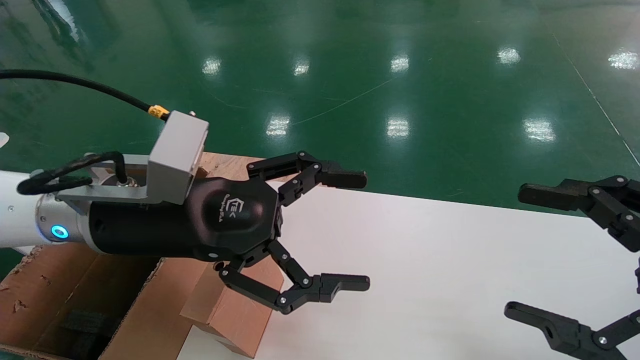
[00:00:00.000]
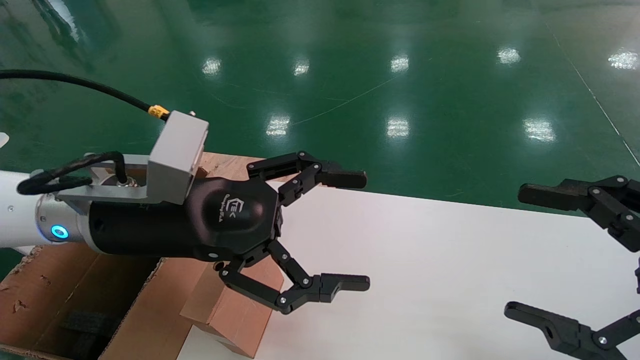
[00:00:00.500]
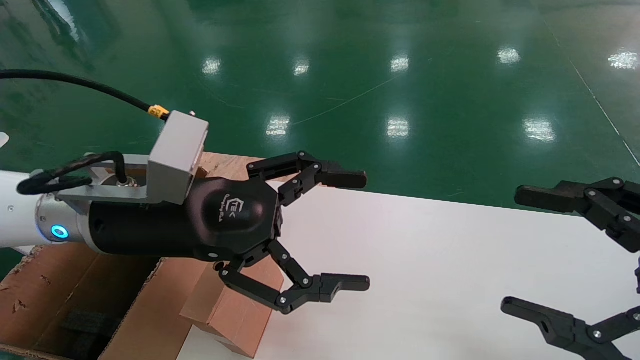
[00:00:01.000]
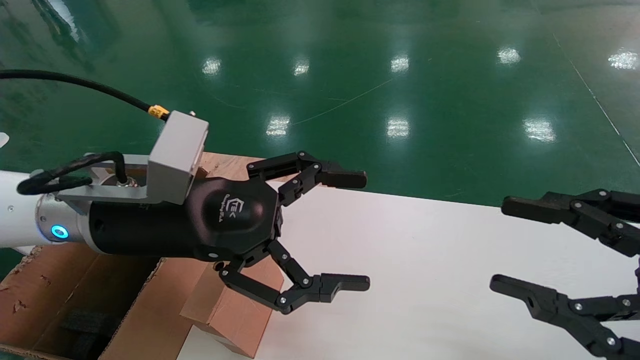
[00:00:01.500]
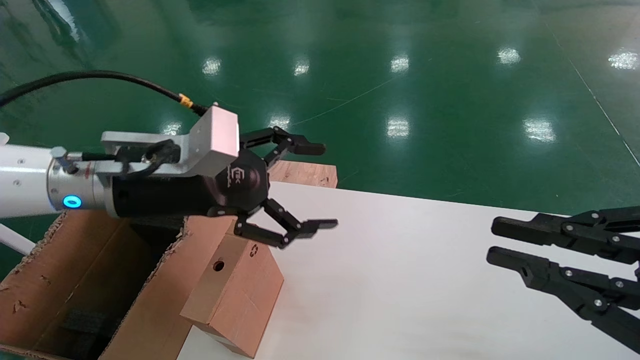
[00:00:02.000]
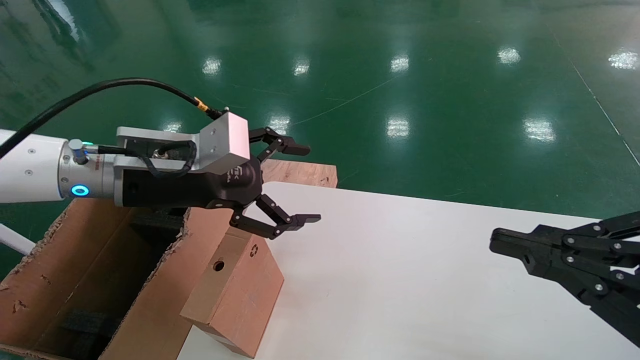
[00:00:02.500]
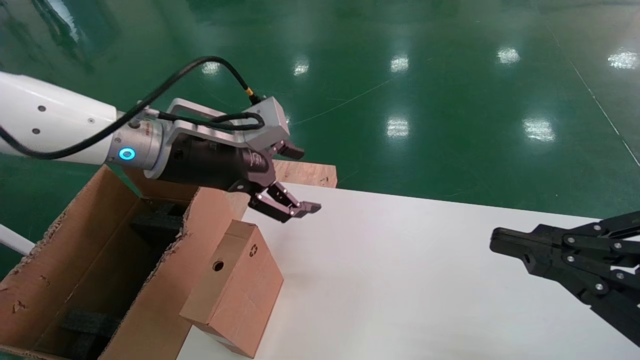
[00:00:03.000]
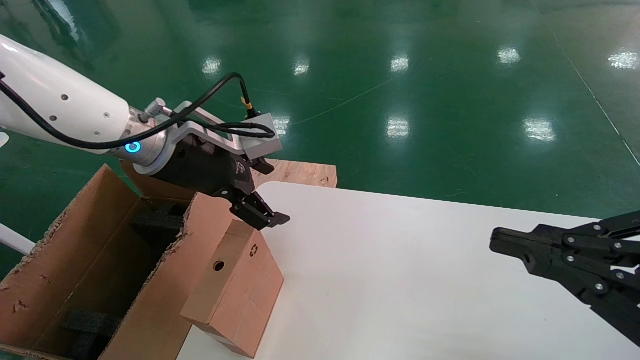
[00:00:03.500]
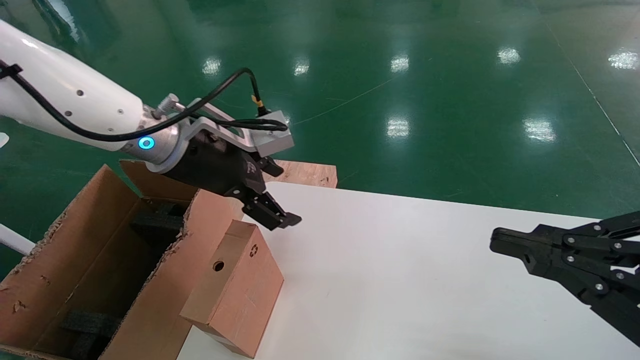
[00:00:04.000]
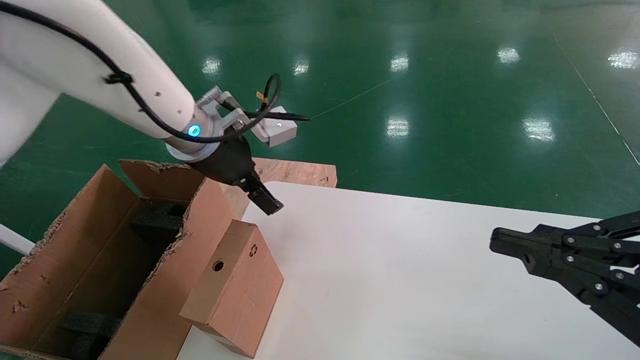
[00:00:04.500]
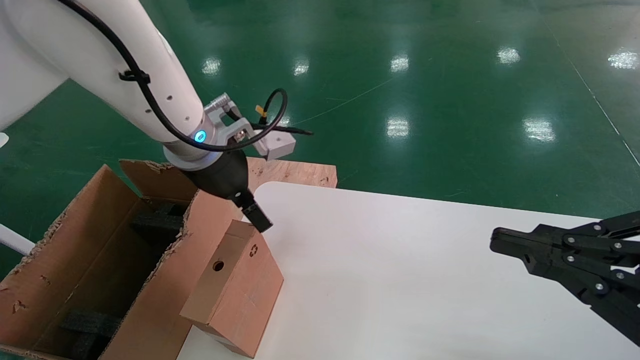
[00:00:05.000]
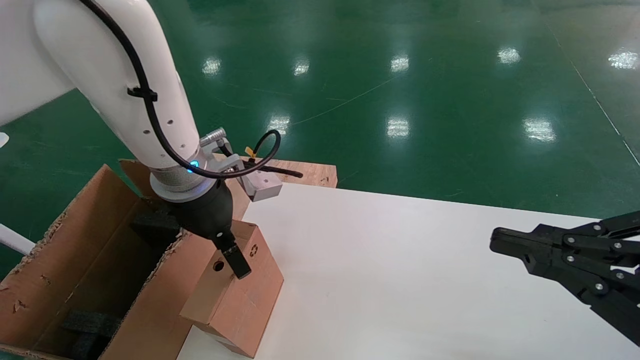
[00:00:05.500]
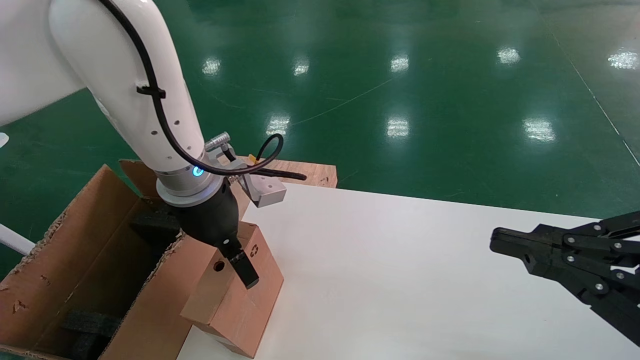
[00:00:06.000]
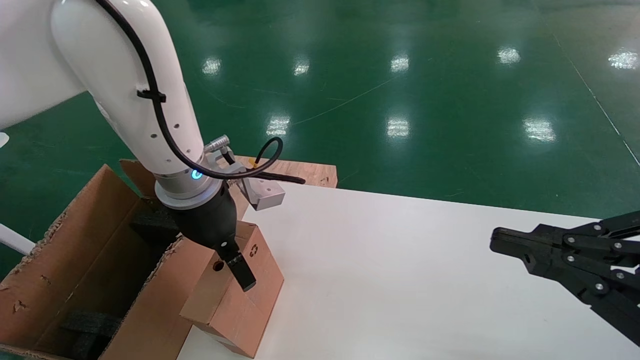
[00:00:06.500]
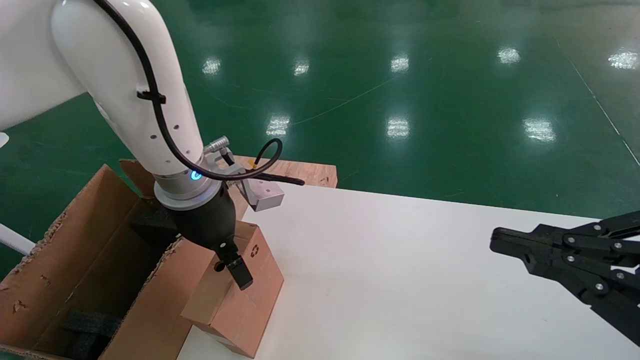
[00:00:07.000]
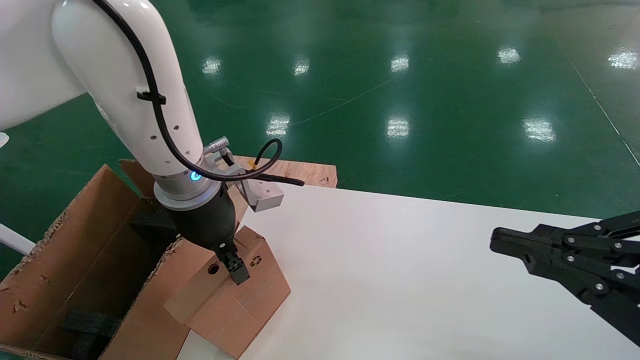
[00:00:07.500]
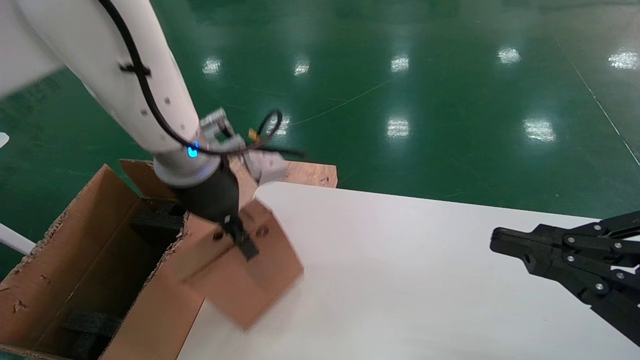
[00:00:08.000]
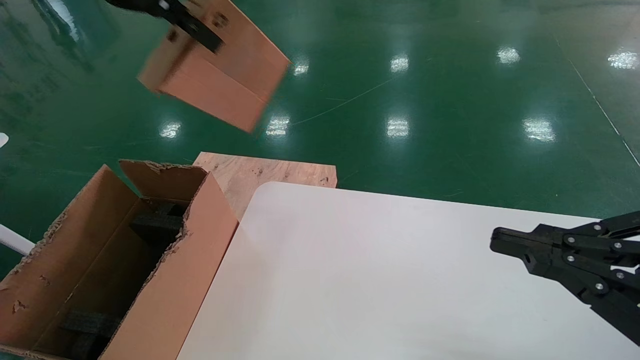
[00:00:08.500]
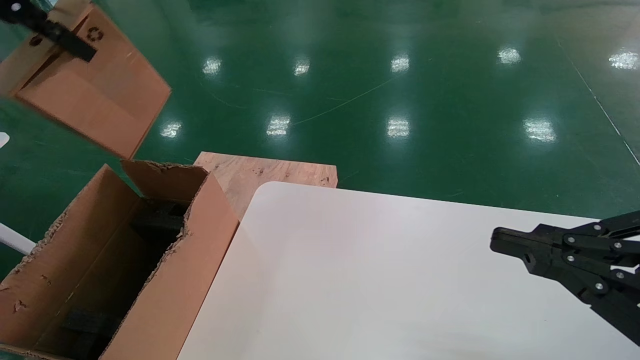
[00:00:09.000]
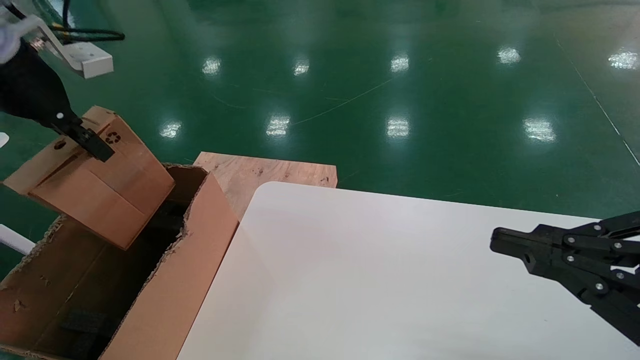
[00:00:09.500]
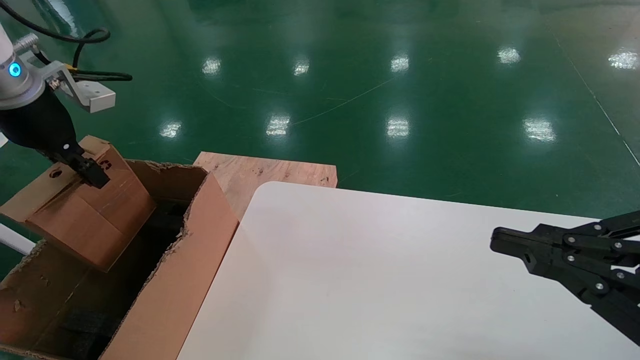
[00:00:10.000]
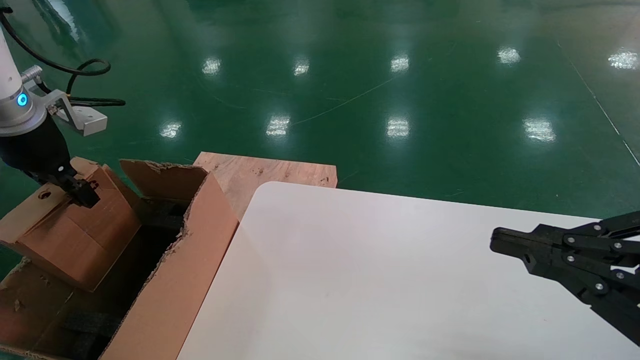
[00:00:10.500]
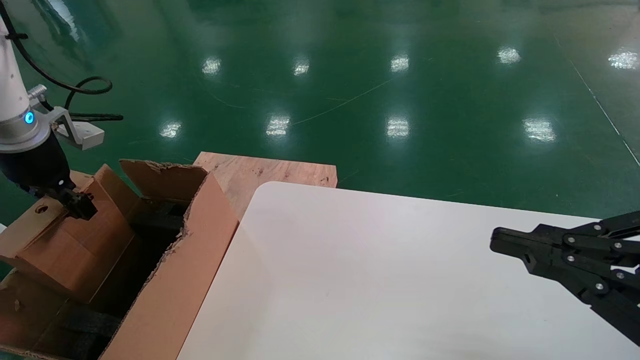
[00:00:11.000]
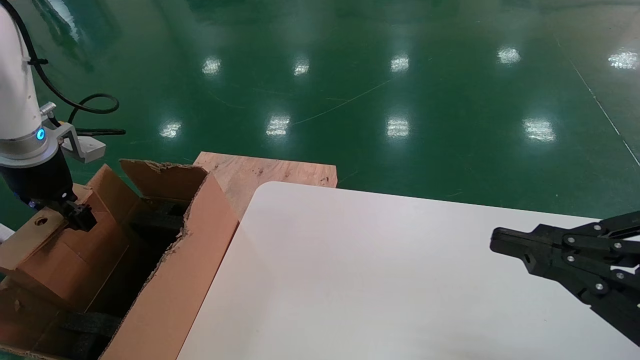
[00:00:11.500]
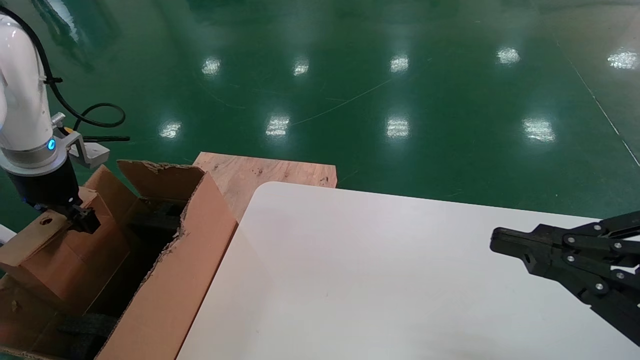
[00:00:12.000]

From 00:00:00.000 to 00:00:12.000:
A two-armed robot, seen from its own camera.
Task of the whole recording: place the small box on the table into the large box on the left.
Step, from 00:00:02.000 to 00:00:07.500: Pick up the mouse and the power cord paper box.
From 00:00:00.000 to 00:00:02.000: The right gripper closes up.
From 00:00:02.000 to 00:00:04.000: The left gripper goes some 5 cm forward.
From 00:00:04.000 to 00:00:06.000: The left gripper shifts by roughly 5 cm.
From 00:00:06.000 to 00:00:08.000: The left gripper shifts some 5 cm upward, and closes up.
From 00:00:08.000 to 00:00:10.000: The left gripper is displaced to the left by roughly 25 cm.
From 00:00:10.000 to 00:00:12.000: The left gripper heads downward, covering about 10 cm.

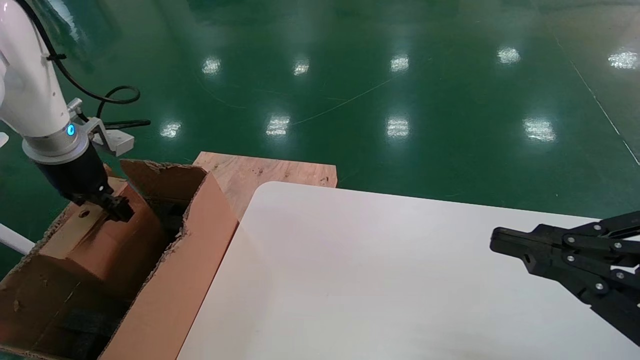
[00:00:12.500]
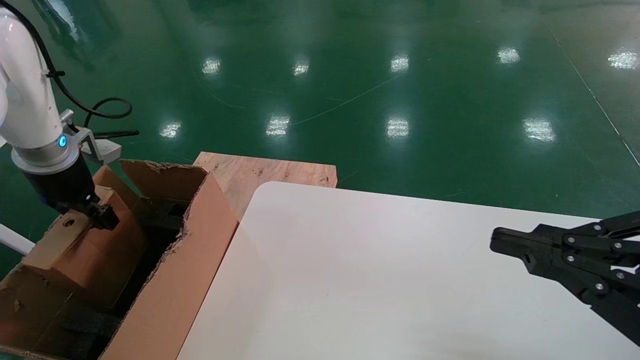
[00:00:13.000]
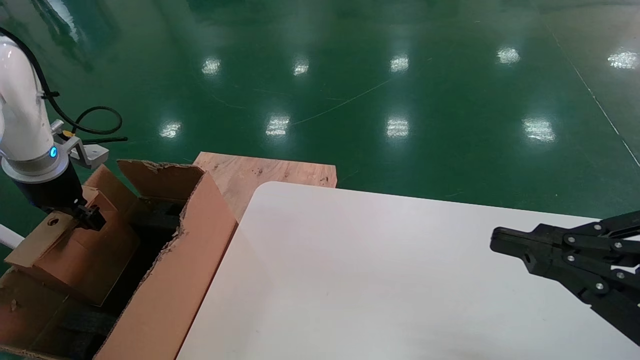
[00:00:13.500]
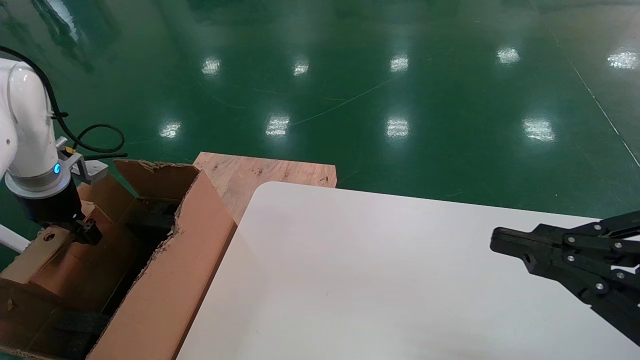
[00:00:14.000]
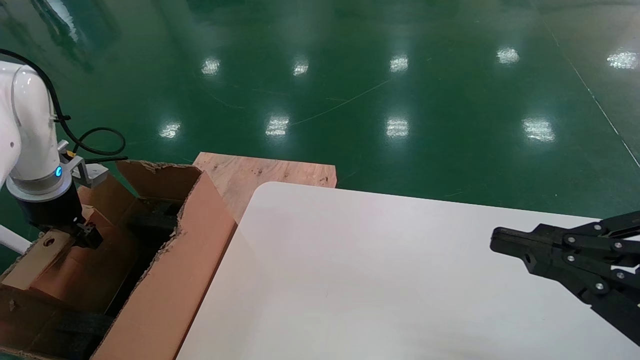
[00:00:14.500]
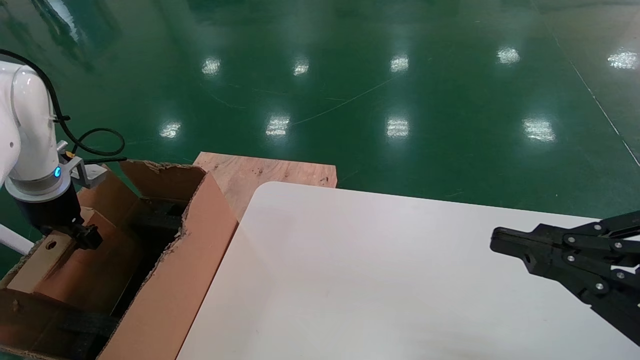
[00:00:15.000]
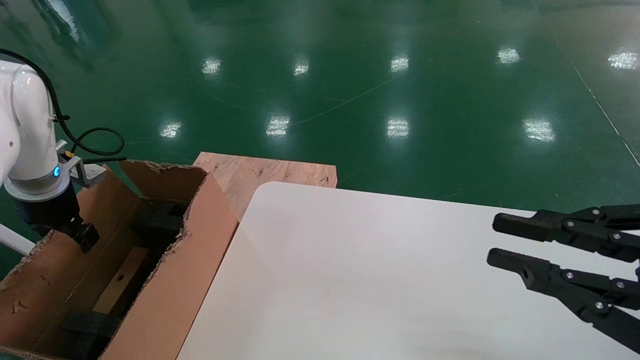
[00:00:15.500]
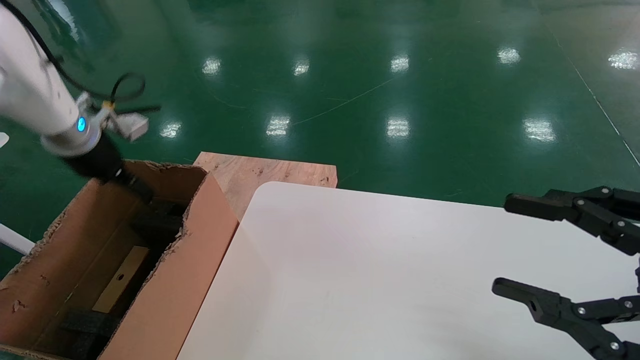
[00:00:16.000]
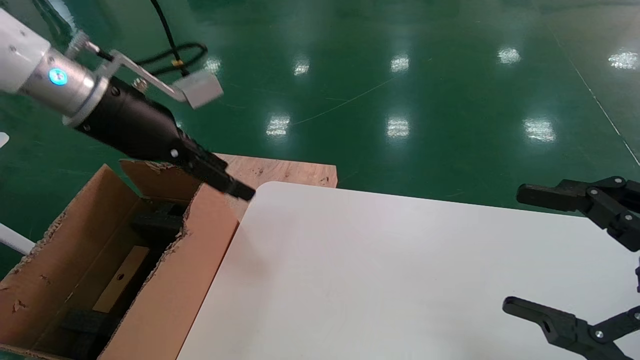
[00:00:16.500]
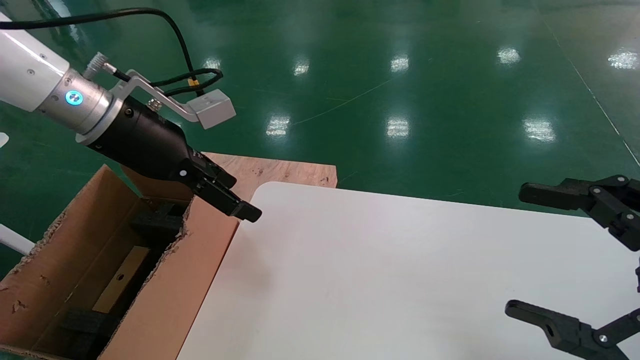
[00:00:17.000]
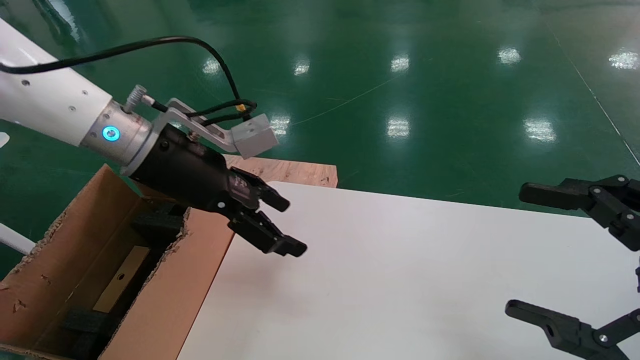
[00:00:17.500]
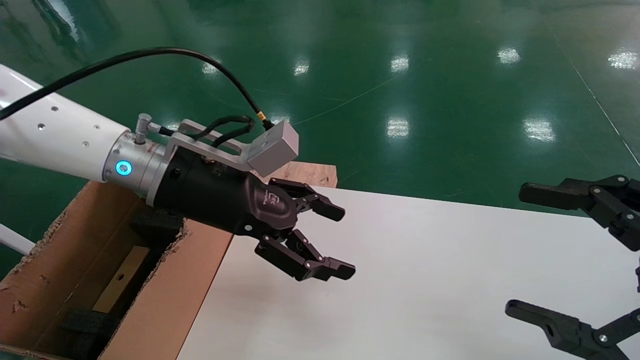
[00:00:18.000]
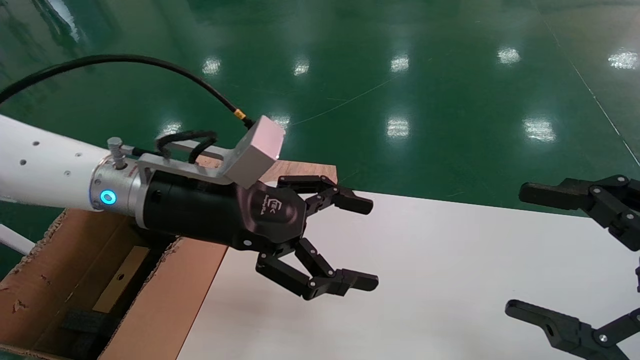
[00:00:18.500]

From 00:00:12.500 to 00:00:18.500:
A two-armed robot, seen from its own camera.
Task of the whole recording: place the small box on the table into the large box on the left.
Step, from 00:00:12.500 to 00:00:15.500: Place the mouse and the power cord paper box into the container.
From 00:00:12.500 to 00:00:14.500: The left gripper travels downward by some 5 cm.
From 00:00:14.500 to 00:00:16.500: The right gripper opens up. Meanwhile the left gripper heads to the right and upward, covering about 20 cm, and opens its fingers.
From 00:00:16.500 to 00:00:18.500: The left gripper shifts roughly 15 cm to the right, downward and backward.
